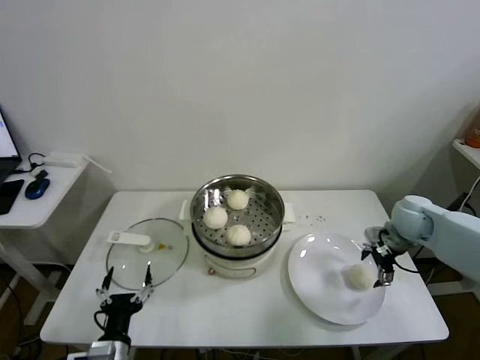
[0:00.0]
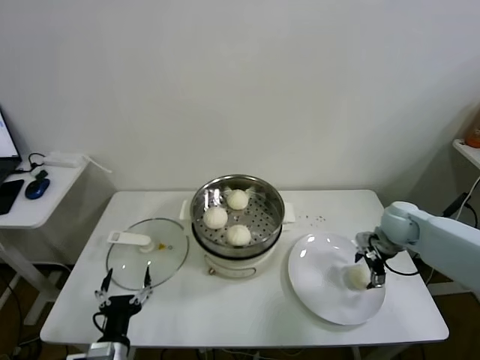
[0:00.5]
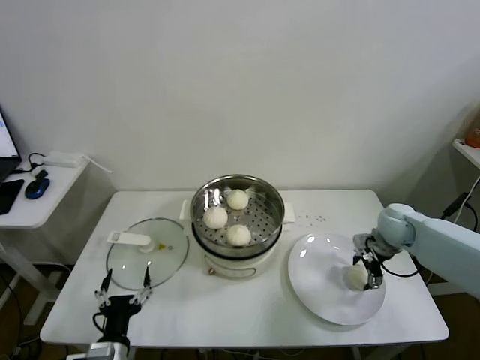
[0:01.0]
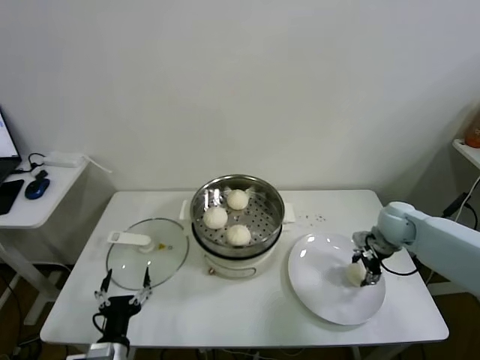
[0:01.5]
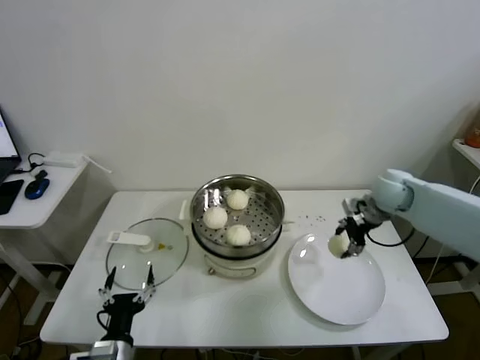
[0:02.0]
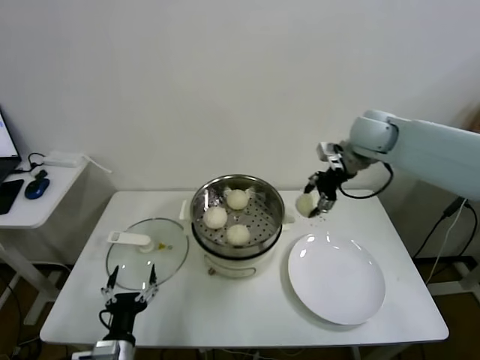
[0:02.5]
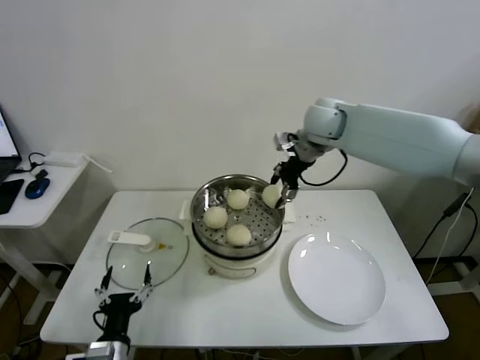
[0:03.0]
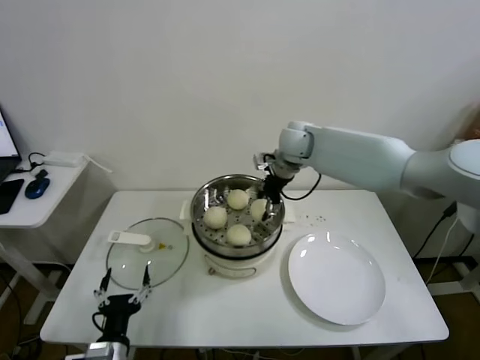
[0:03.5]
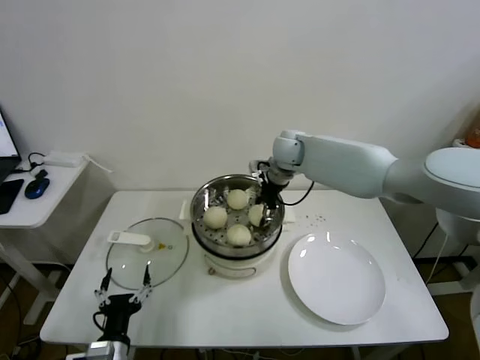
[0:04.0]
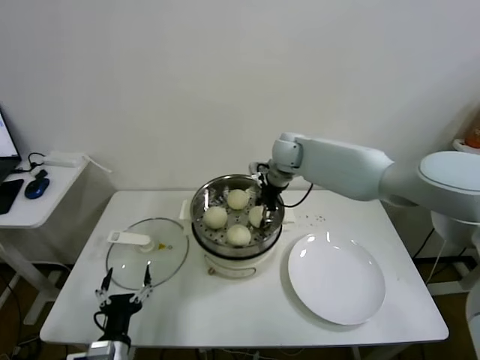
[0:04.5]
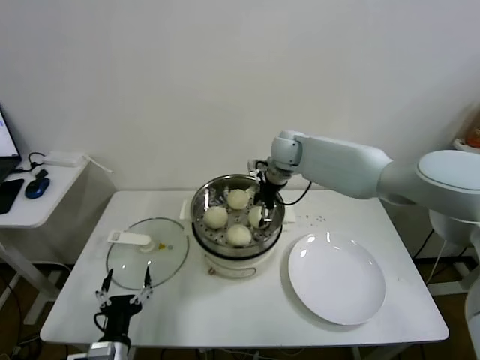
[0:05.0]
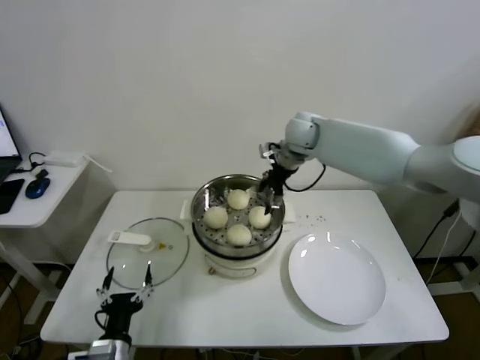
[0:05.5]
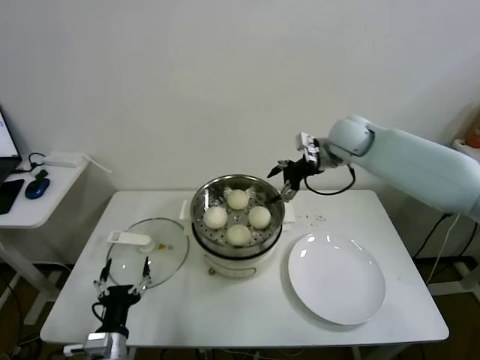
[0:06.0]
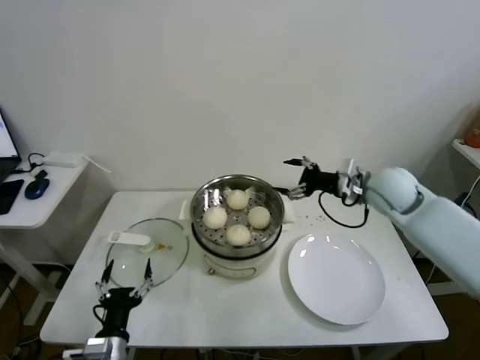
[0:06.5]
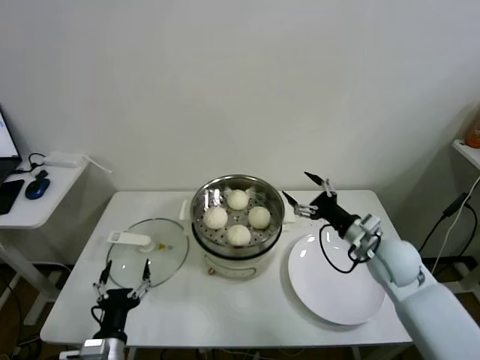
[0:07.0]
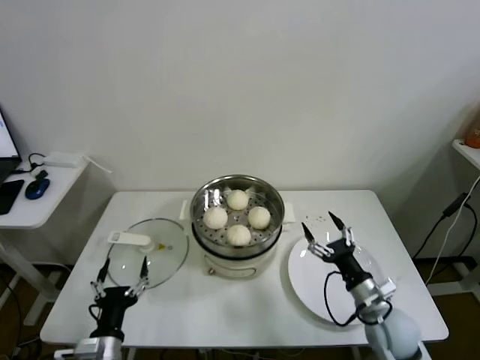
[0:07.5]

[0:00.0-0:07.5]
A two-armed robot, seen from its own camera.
Task of the whole recording: take steamed baozi put them in steamer.
Step, 0:01.5 to 0:05.0: Place the baozi on the steamer with right gripper.
0:00.0 to 0:02.0: The right gripper changes place by some 10 cm, and closes up.
0:02.0 to 0:04.0: The right gripper travels to the left and forward by roughly 25 cm.
0:04.0 to 0:05.5: The right gripper opens up.
0:05.5 to 0:07.5: The right gripper heads backward, downward and to the right, covering roughly 50 cm.
